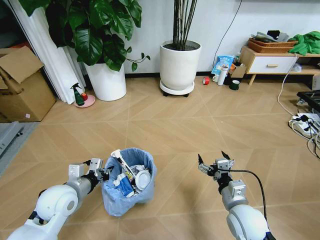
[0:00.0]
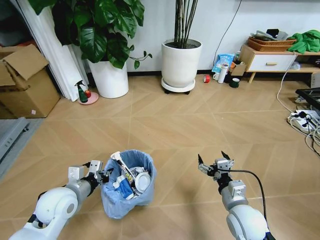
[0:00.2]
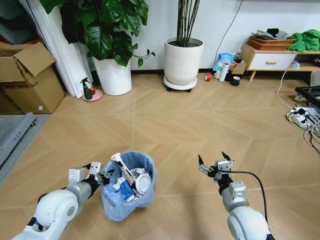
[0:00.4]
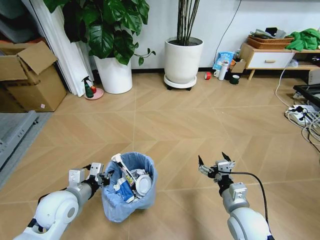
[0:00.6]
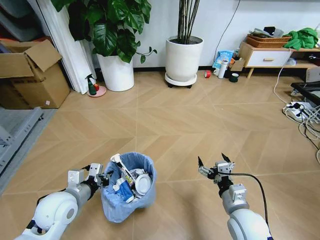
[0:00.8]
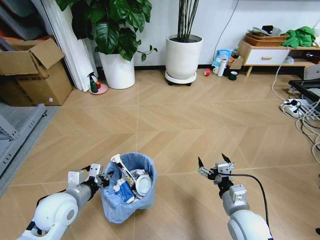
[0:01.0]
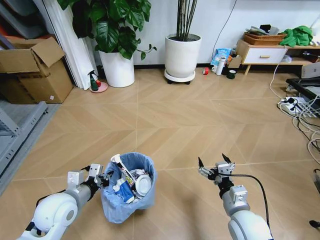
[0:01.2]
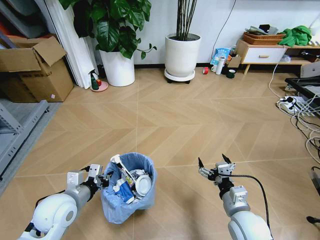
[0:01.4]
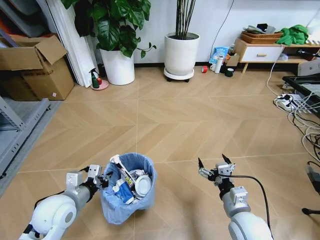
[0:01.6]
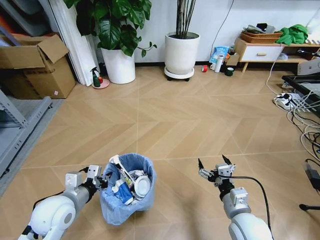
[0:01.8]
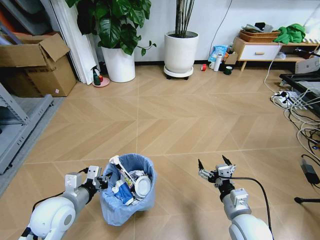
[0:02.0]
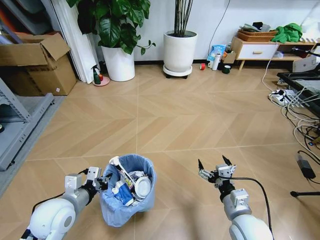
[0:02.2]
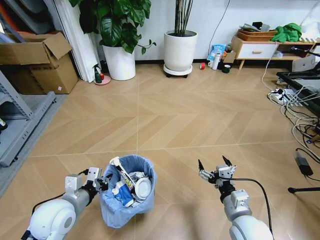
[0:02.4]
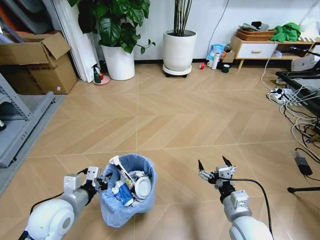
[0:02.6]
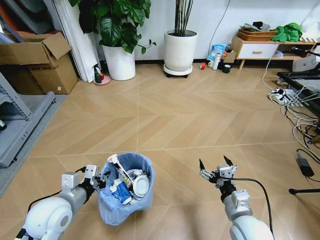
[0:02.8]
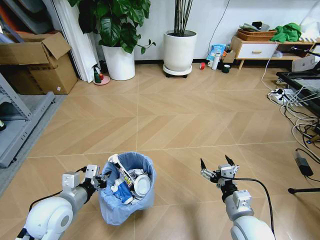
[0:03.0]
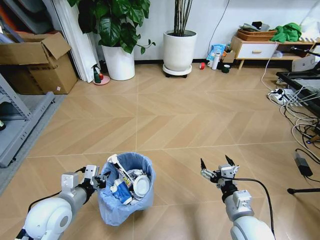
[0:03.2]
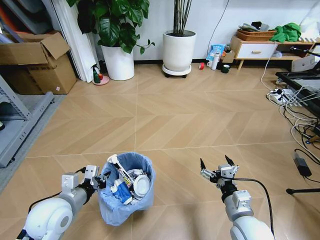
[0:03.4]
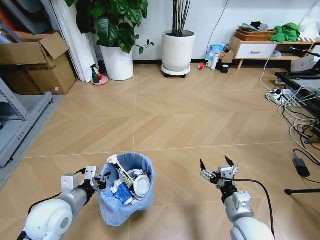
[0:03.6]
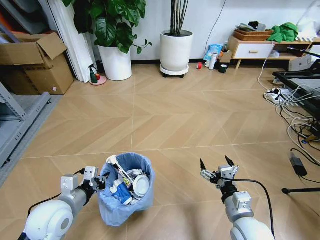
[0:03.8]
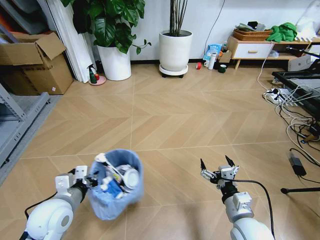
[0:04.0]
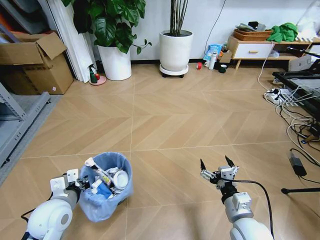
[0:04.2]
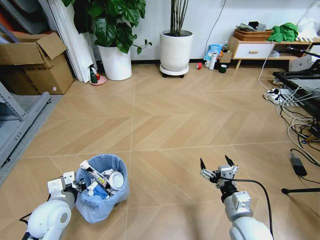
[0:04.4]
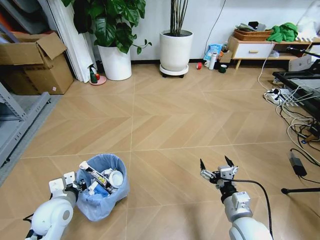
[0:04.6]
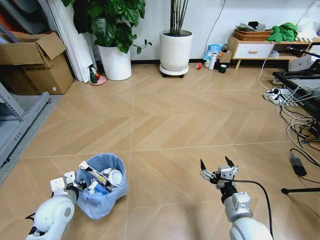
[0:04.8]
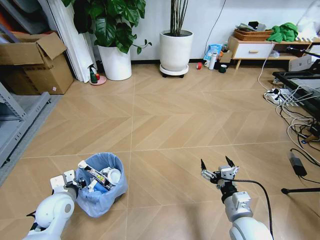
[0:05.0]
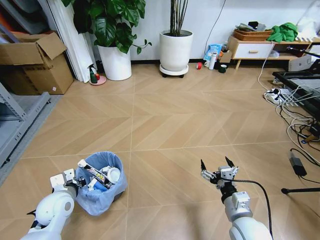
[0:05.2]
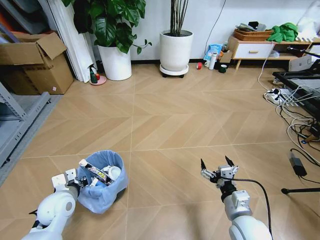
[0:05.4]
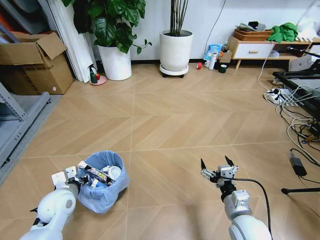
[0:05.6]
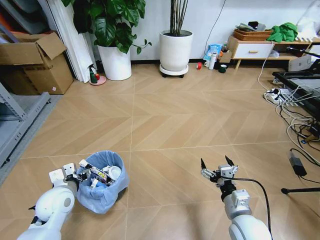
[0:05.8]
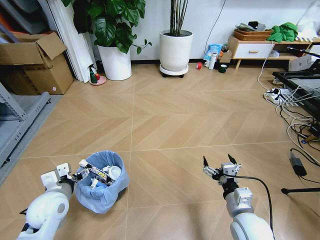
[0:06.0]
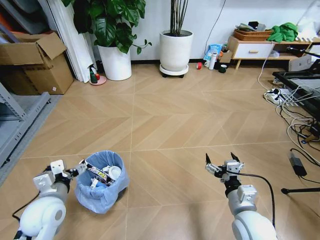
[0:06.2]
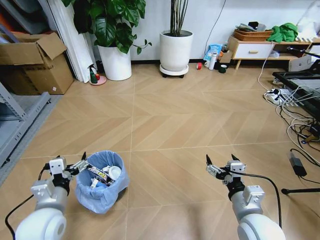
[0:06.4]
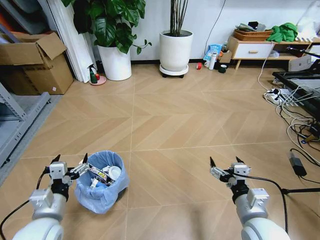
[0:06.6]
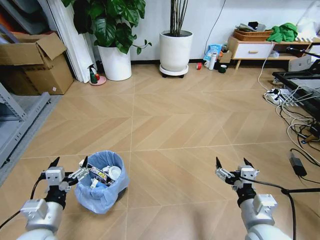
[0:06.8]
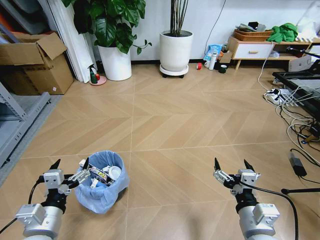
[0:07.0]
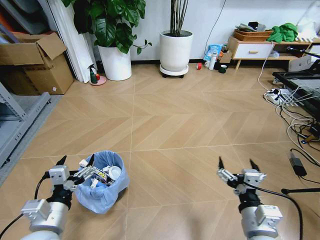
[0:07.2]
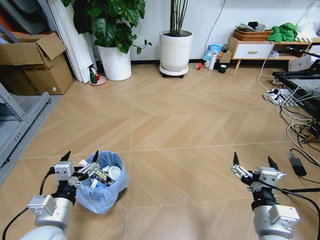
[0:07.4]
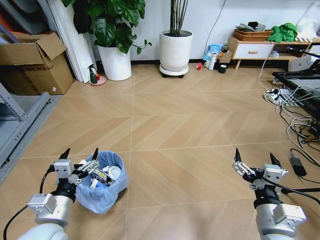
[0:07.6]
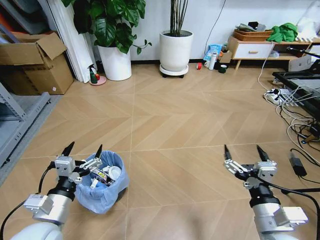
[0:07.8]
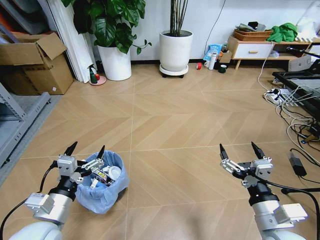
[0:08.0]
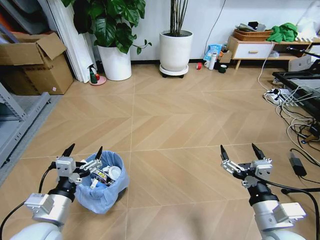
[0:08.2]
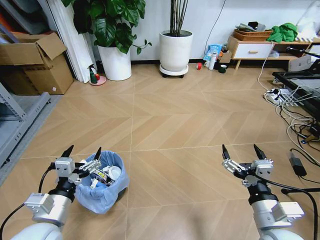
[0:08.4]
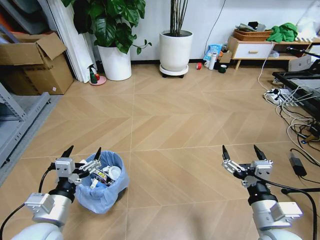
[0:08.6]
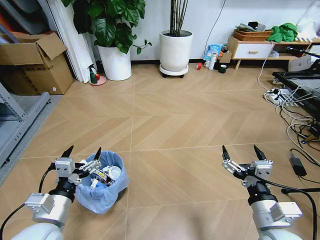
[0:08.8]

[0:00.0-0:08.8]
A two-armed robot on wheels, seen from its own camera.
Task of the whole recording: Pick up the trash bin and place the garbage on the floor into it.
0:04.4 to 0:05.8: The left gripper opens up.
0:05.8 to 0:07.4: The right gripper heads upward and backward, covering about 10 cm. Meanwhile the left gripper moves backward and upward, approximately 15 cm, and opens its fingers.
0:07.4 to 0:08.8: The grippers make only small movements.
